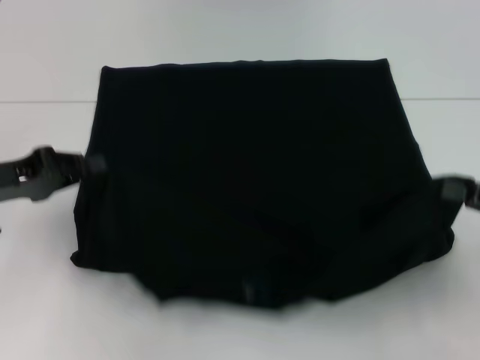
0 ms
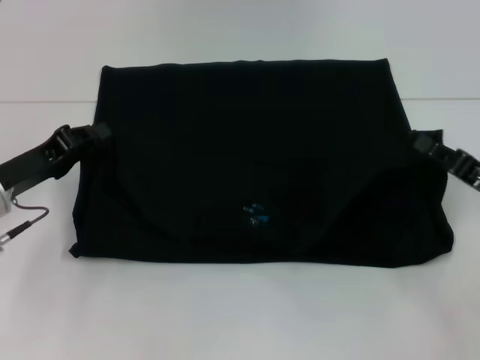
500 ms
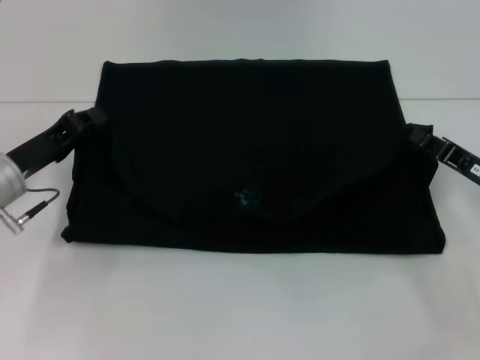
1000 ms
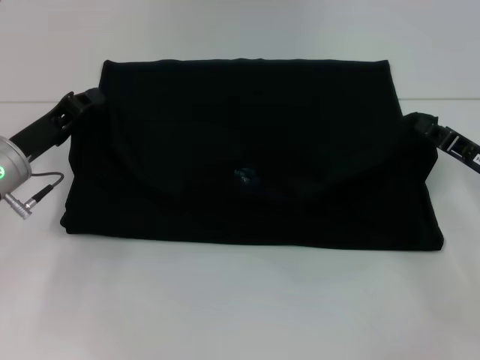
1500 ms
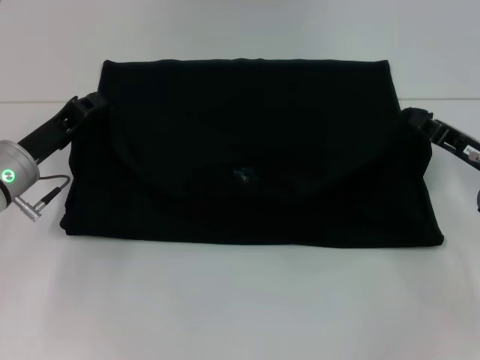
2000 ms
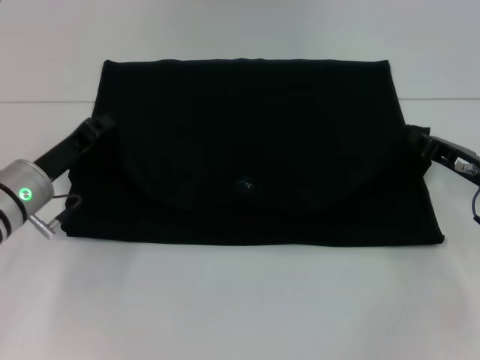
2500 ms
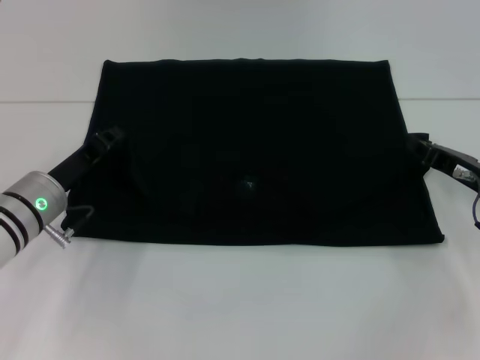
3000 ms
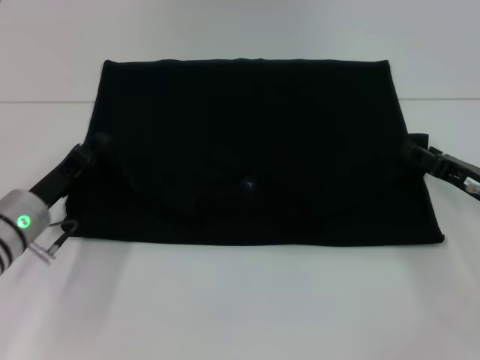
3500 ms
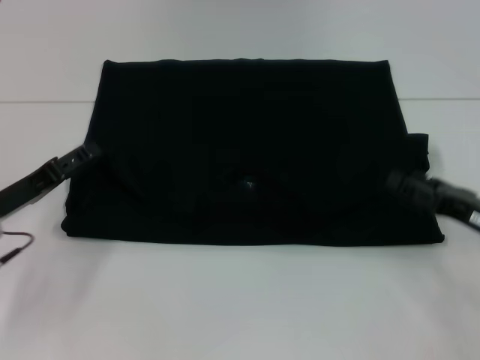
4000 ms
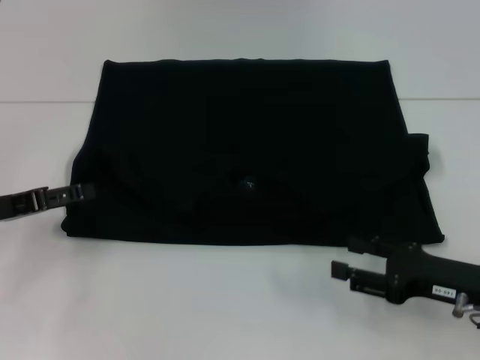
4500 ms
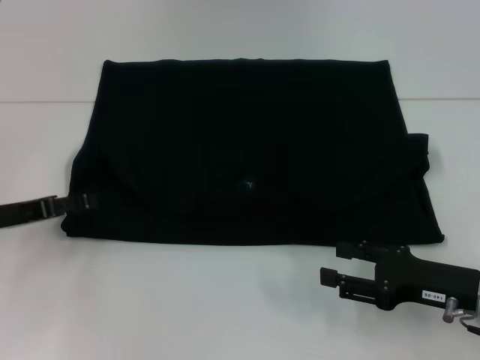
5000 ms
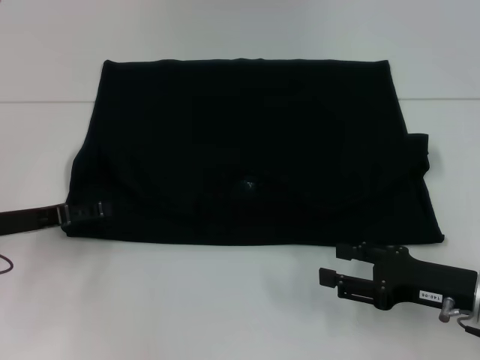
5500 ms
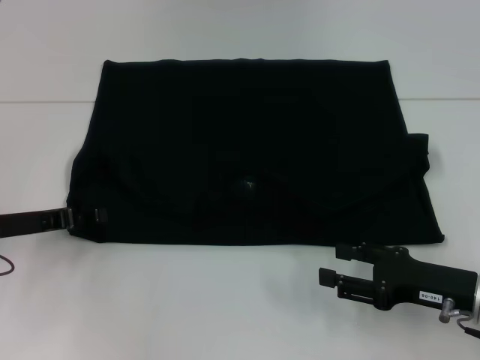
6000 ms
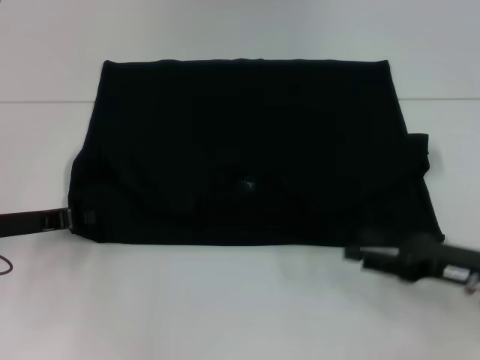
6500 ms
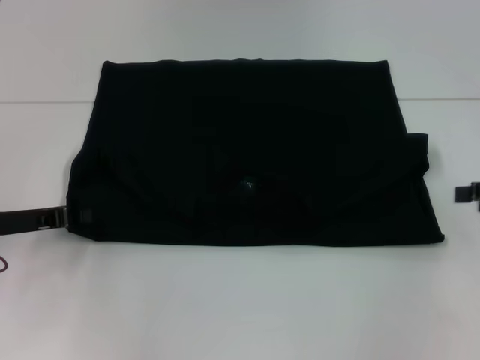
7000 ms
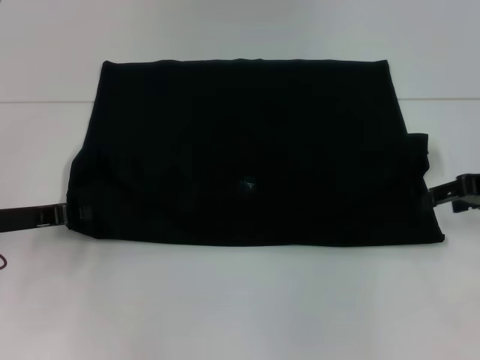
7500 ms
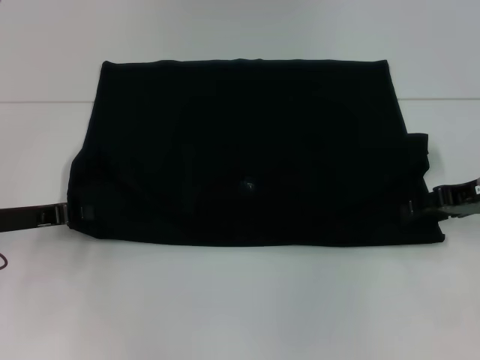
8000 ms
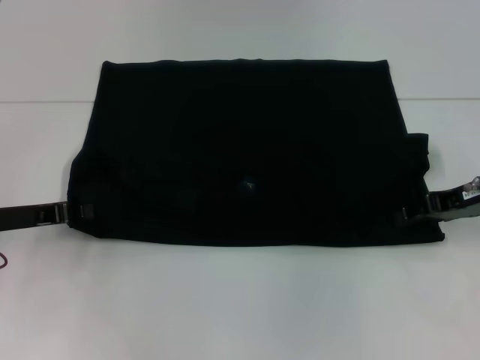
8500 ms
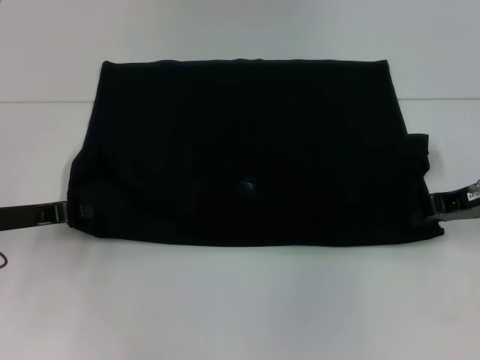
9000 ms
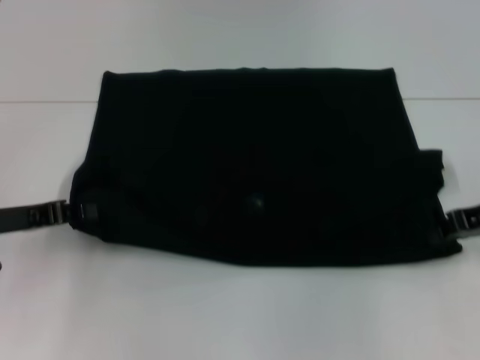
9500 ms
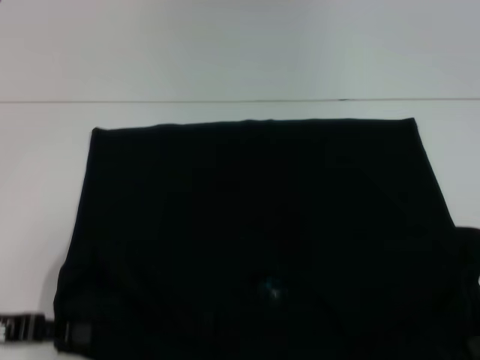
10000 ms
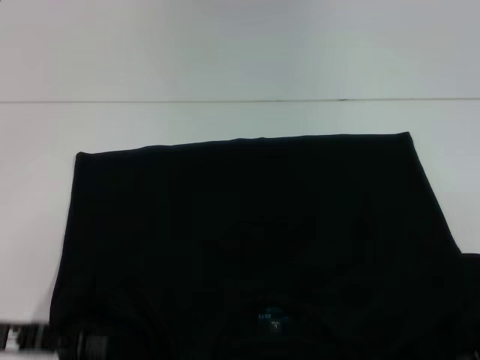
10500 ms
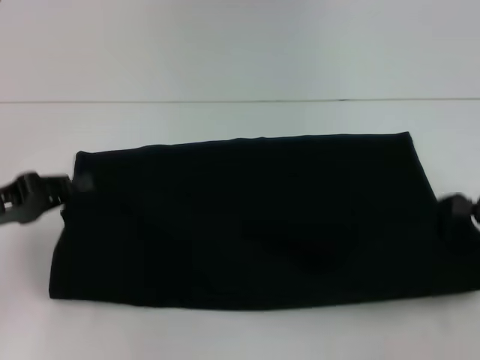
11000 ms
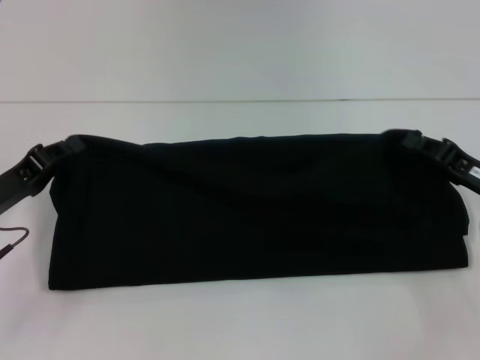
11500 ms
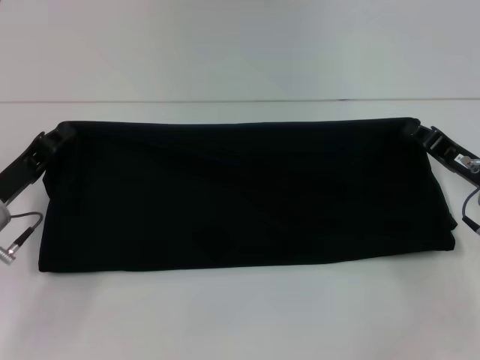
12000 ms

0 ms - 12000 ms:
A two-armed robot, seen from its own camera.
Step, 0 ms - 3000 ms: Fold the clothes with your left hand.
Step, 0 ms - 3000 ms: Fold the clothes with your right hand.
Step, 3500 ms - 10000 ms: Pull the clothes with your left hand.
Step, 3500 ms - 10000 ms: Pull the clothes with your right hand.
0 ms - 2000 ms: The left gripper is displaced to the right and downward by about 10 cm. The right gripper goes roughly 10 cm forward, to the left and downward.
2000 ms - 4000 ms: The right gripper goes some 5 cm backward, and opens its fingers; the left gripper ends up about 5 cm from where it was, and opens.
4000 ms - 6000 ms: The right gripper changes place by roughly 5 cm.
6000 ms - 8000 ms: The left gripper closes its fingers. The right gripper shifts approximately 15 cm forward and upward.
8000 ms - 10000 ms: Both grippers travel together backward, about 10 cm. The right gripper closes up.
10000 ms - 12000 ms: The right gripper moves downward, to the left and forward, roughly 10 cm, while the left gripper shifts about 10 cm forward.

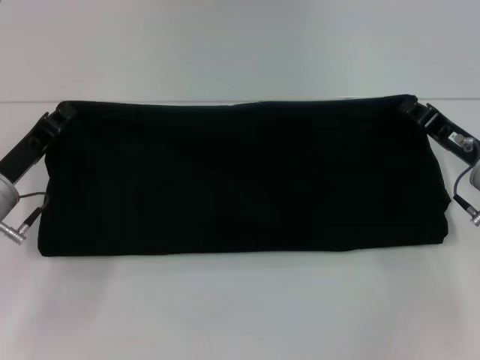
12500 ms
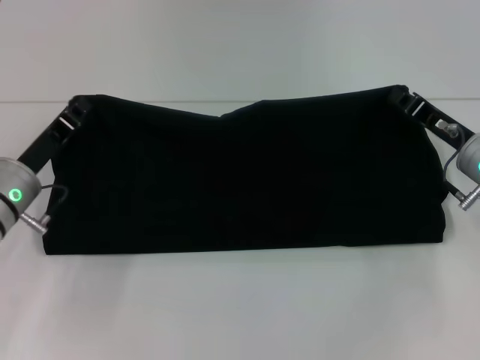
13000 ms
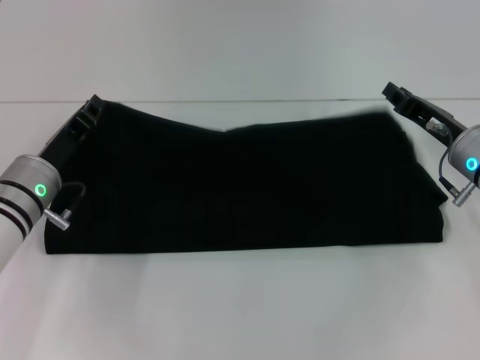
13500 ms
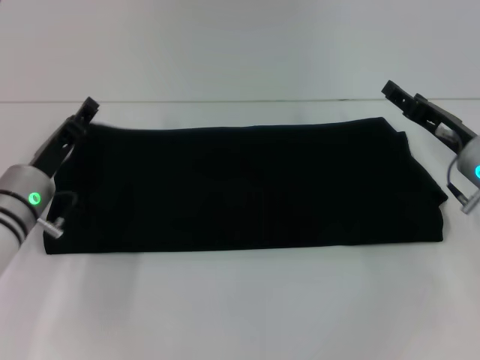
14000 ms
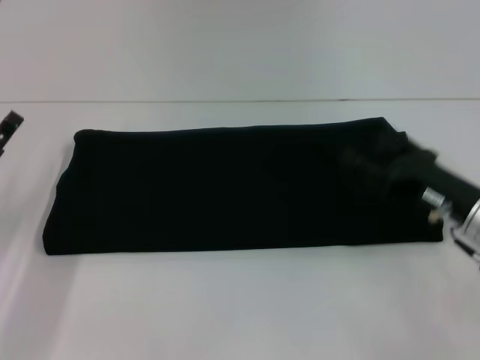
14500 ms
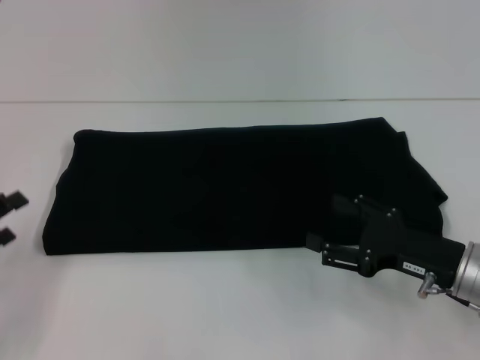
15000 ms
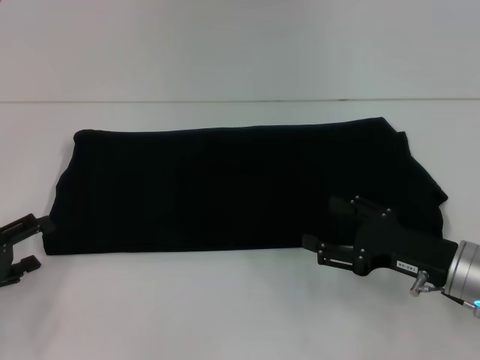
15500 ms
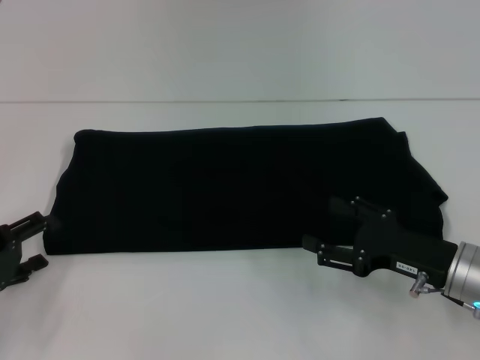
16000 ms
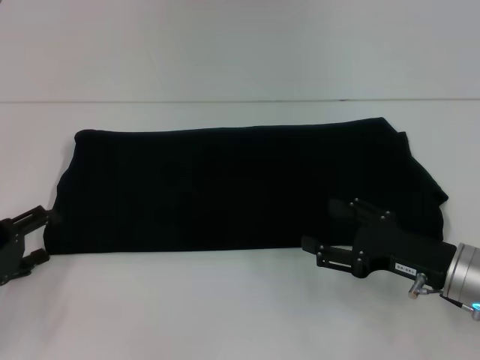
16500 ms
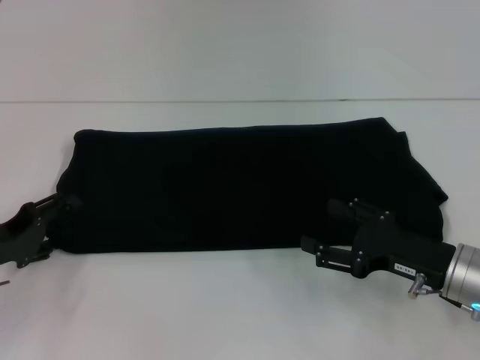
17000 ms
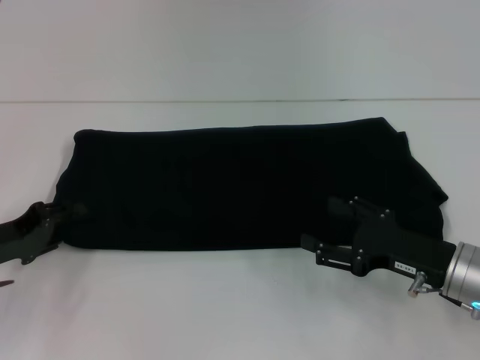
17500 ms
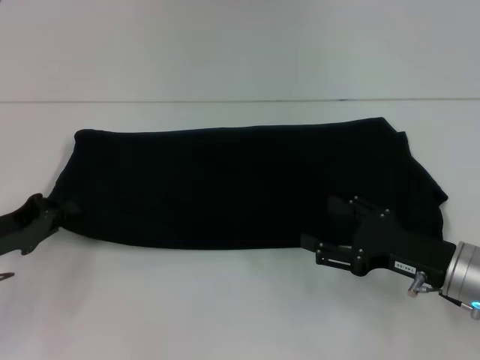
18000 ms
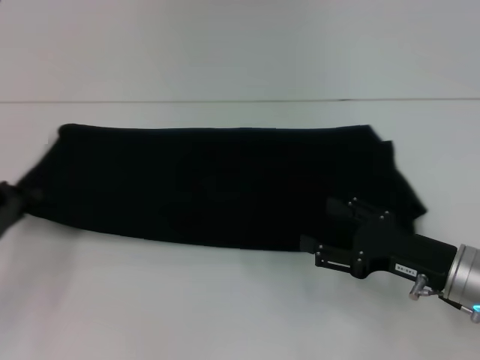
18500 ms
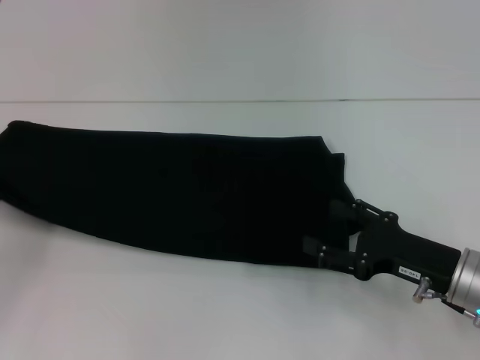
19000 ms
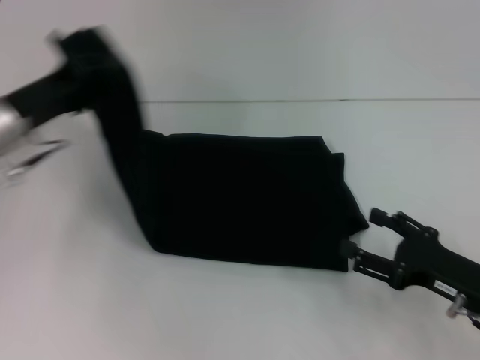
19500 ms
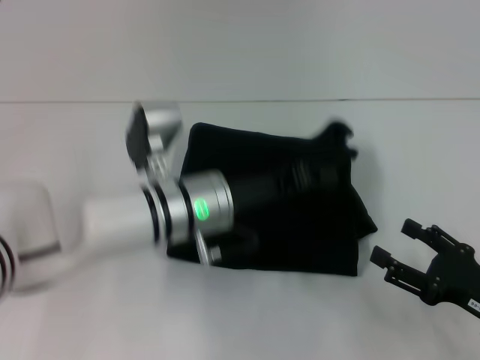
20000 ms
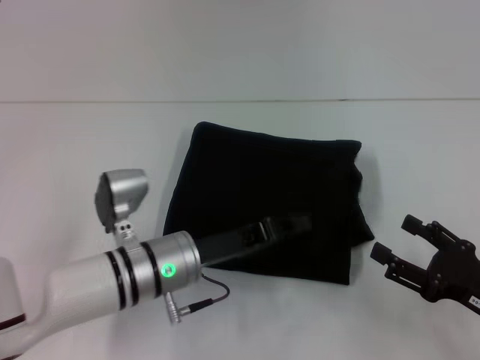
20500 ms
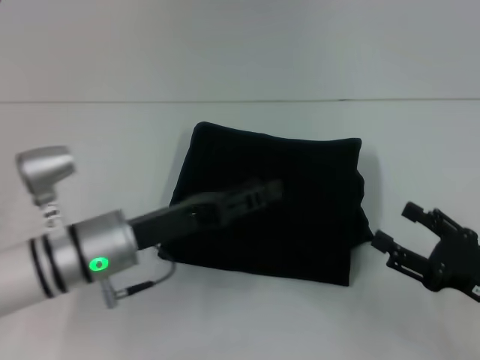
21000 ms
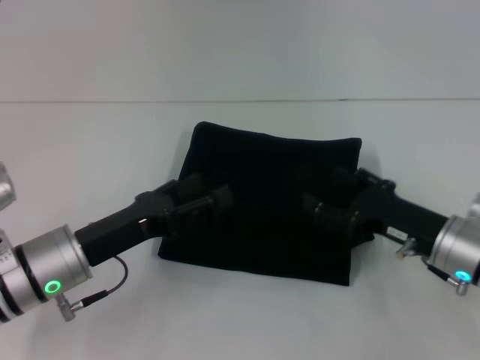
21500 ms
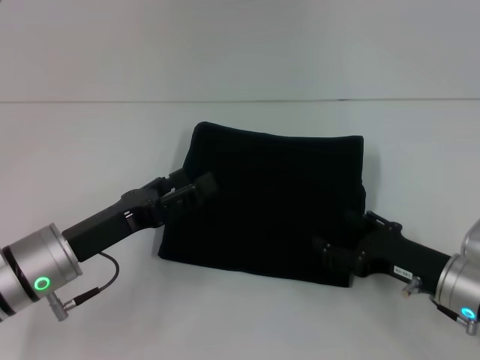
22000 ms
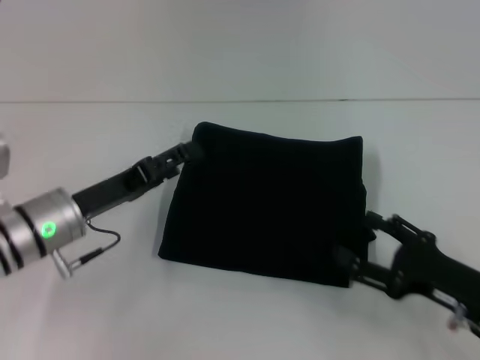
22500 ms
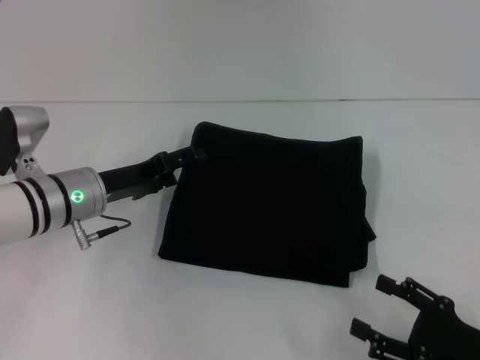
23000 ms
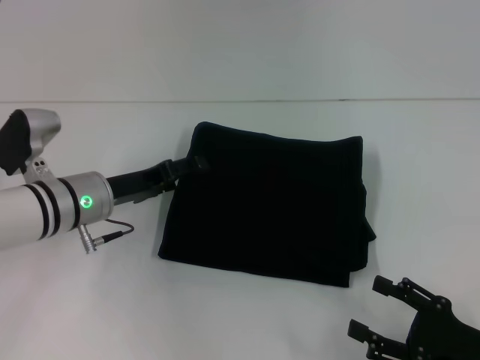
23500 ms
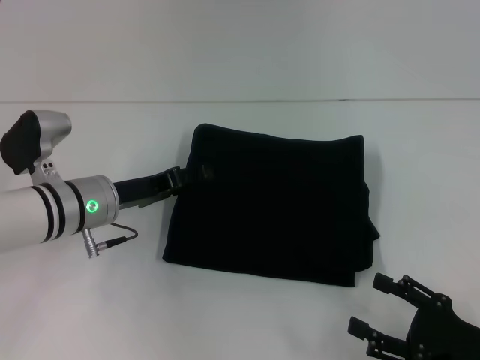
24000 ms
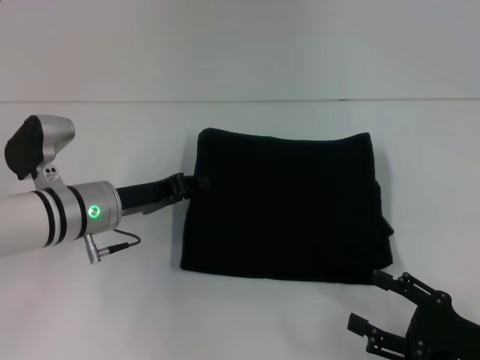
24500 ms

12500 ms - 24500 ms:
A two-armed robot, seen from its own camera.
Step, 12500 ms - 20500 ms: Fold the clothes with your left hand.
12500 ms - 14500 ms: The right gripper opens up; the left gripper ends up approximately 5 cm from where it was, and opens up.
16500 ms - 18500 ms: The left gripper closes.
18500 ms - 20500 ms: The right gripper shifts some 10 cm backward and to the right. Meanwhile the left gripper shifts roughly 25 cm to the right.
20500 ms - 22500 ms: The right gripper travels forward and back again, roughly 10 cm each way. Meanwhile the left gripper heads to the left, covering roughly 10 cm, and opens up.
22500 ms - 24500 ms: The right gripper is displaced backward by approximately 5 cm; the left gripper closes up.

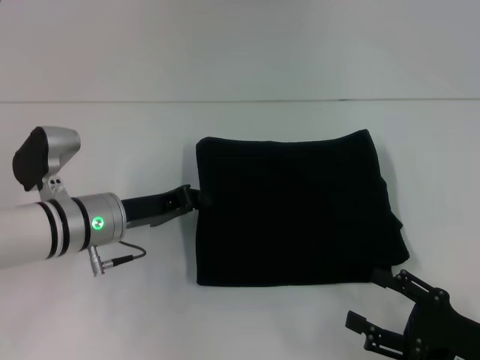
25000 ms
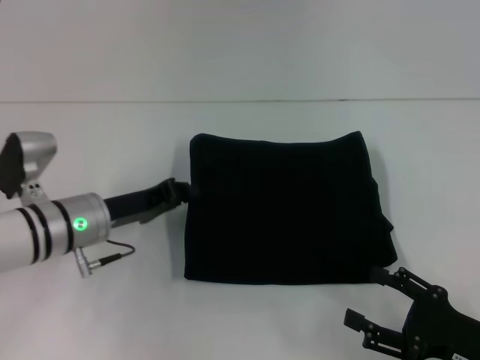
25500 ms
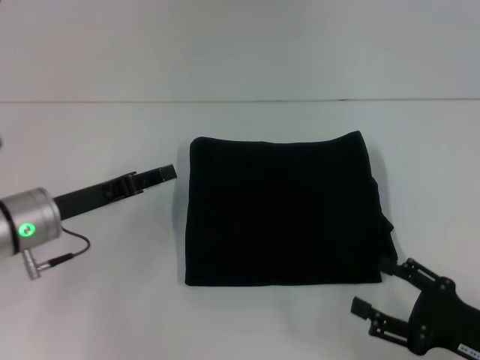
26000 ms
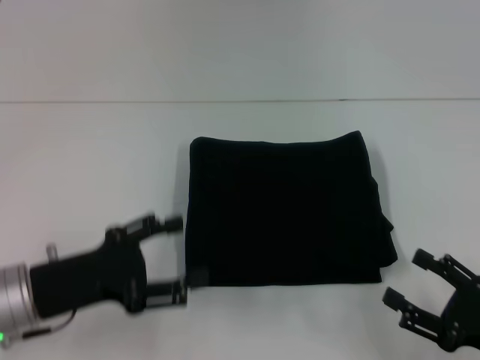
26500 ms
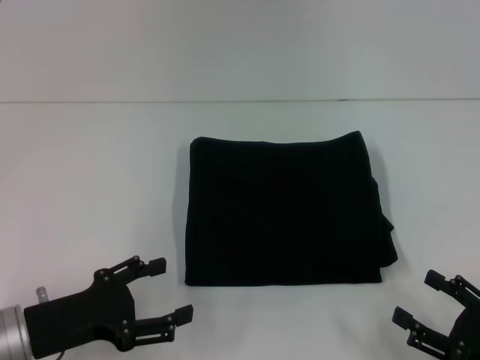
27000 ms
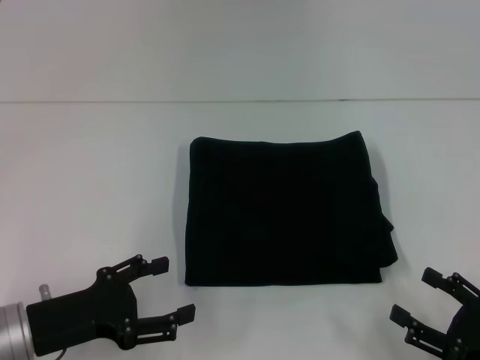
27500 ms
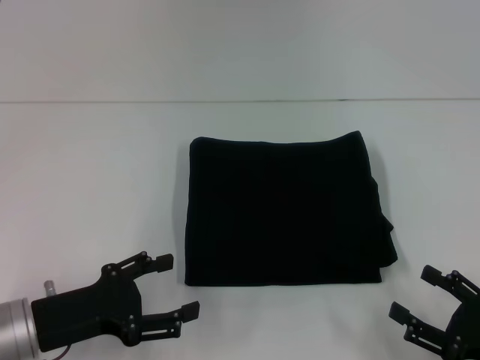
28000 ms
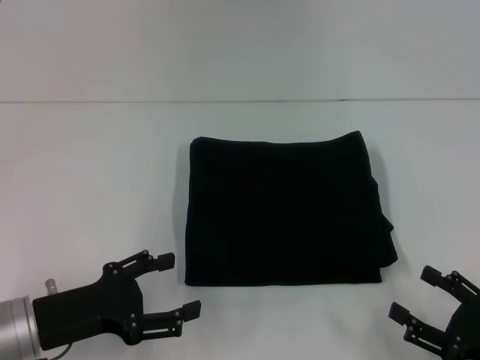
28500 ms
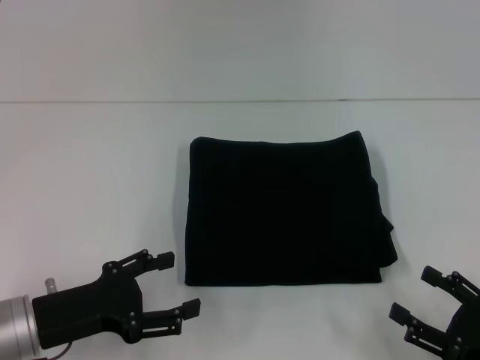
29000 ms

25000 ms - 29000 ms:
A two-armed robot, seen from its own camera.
25000 ms - 27000 ms: The left gripper shifts approximately 15 cm backward and to the left, and opens its fingers.
27000 ms - 29000 ms: Neither gripper changes place.
